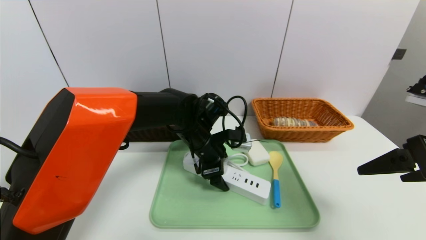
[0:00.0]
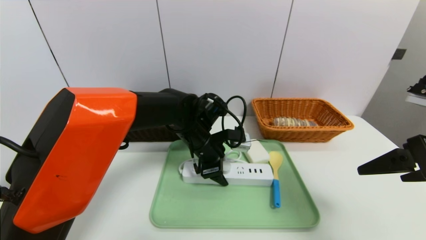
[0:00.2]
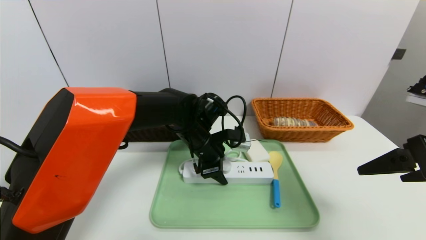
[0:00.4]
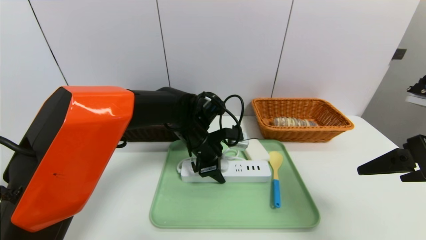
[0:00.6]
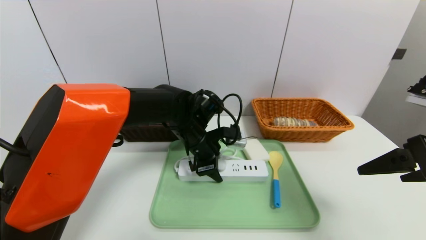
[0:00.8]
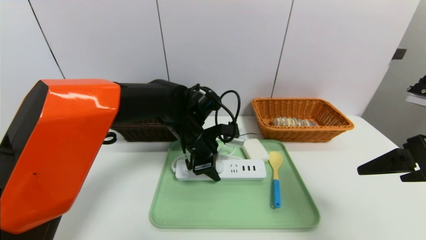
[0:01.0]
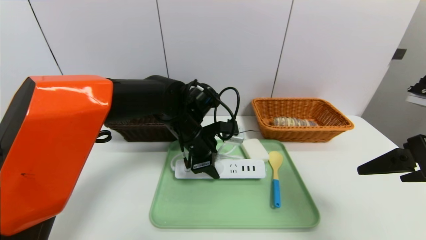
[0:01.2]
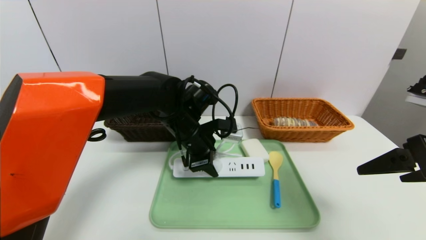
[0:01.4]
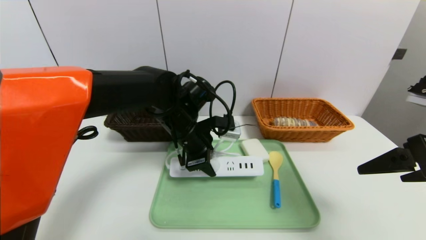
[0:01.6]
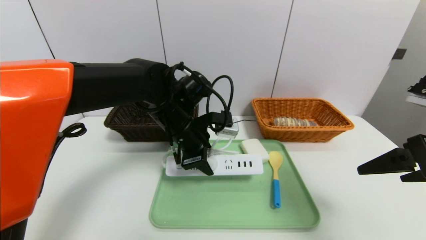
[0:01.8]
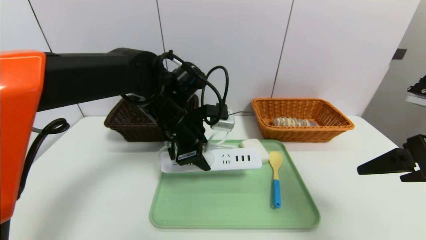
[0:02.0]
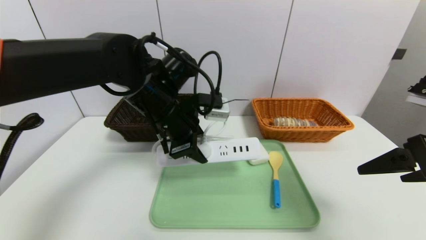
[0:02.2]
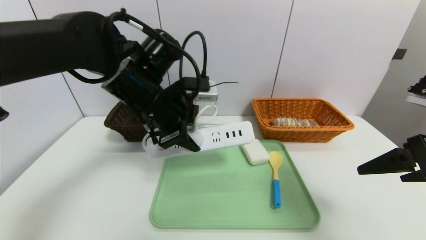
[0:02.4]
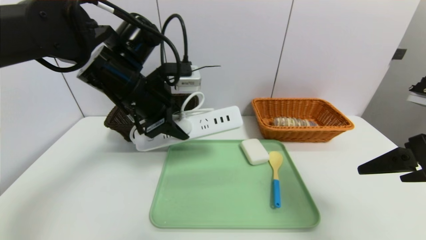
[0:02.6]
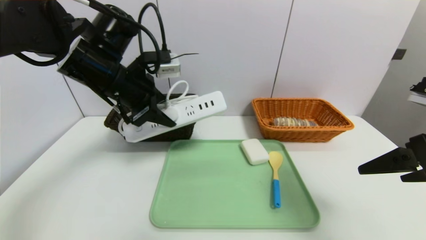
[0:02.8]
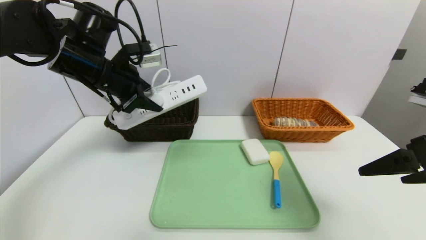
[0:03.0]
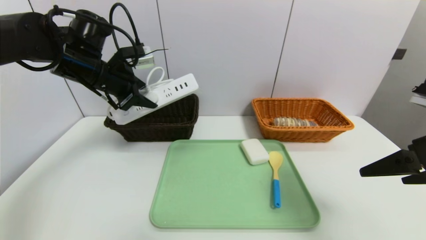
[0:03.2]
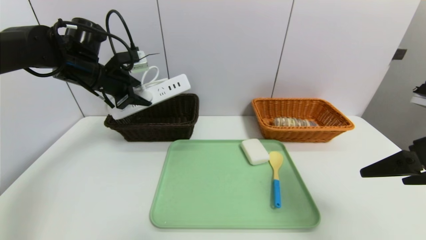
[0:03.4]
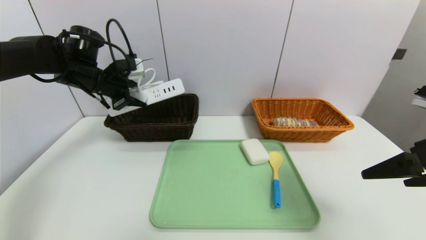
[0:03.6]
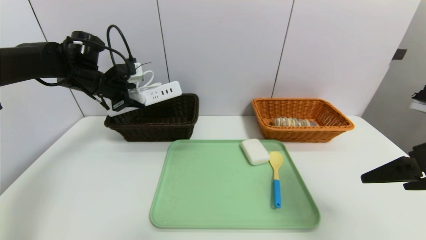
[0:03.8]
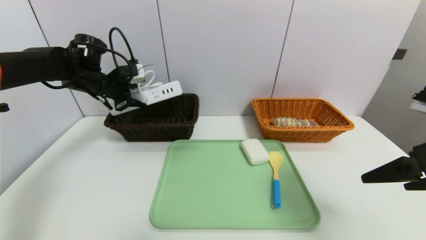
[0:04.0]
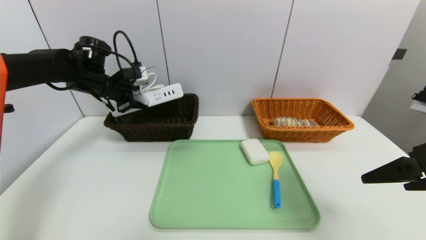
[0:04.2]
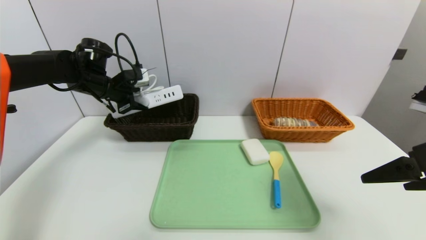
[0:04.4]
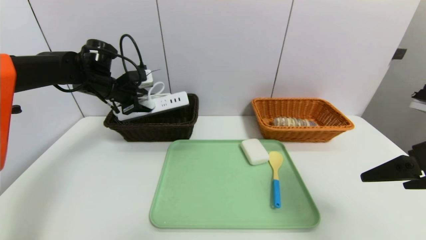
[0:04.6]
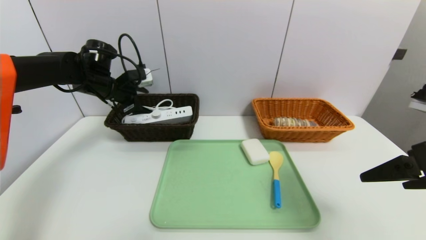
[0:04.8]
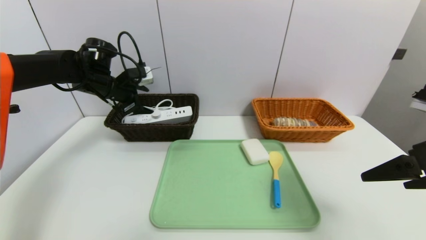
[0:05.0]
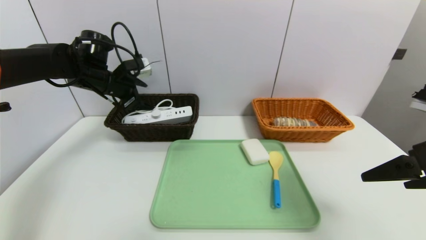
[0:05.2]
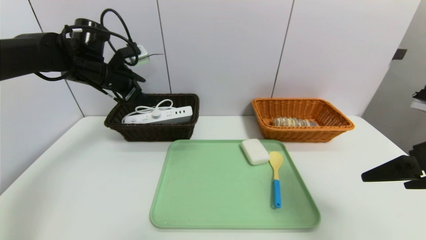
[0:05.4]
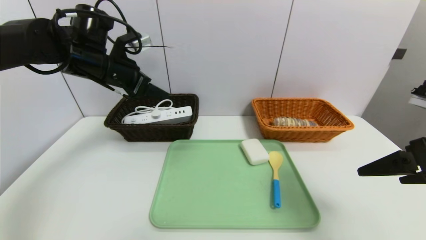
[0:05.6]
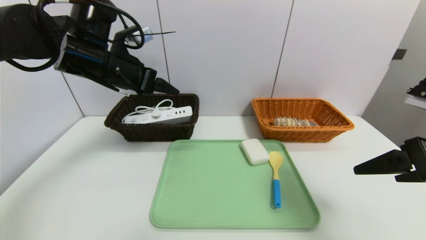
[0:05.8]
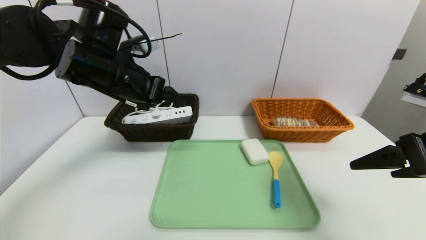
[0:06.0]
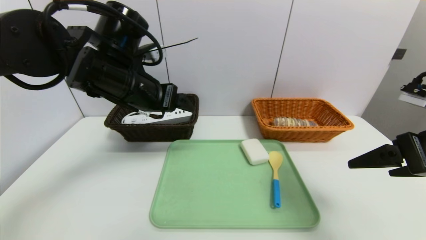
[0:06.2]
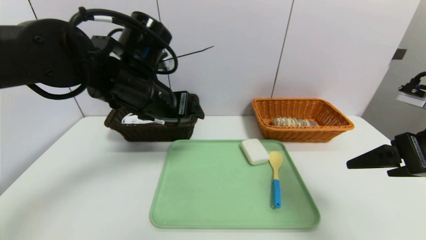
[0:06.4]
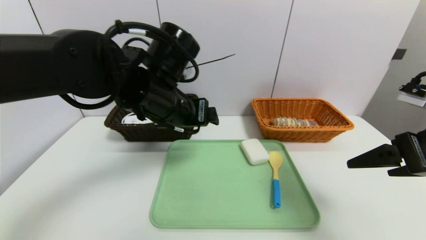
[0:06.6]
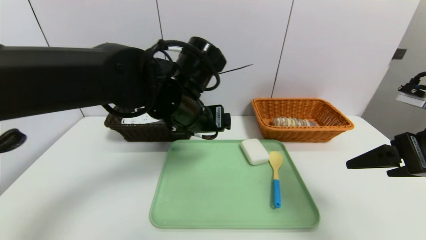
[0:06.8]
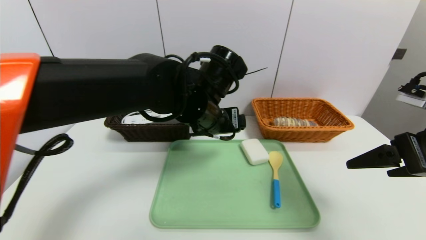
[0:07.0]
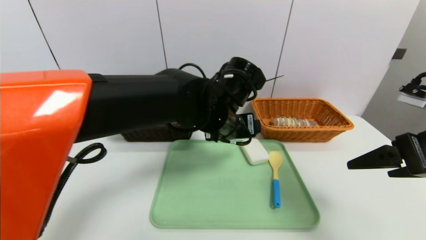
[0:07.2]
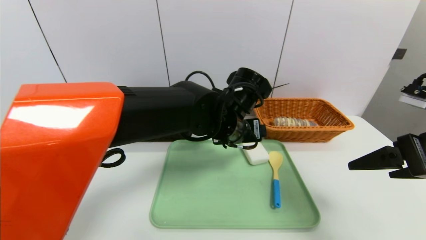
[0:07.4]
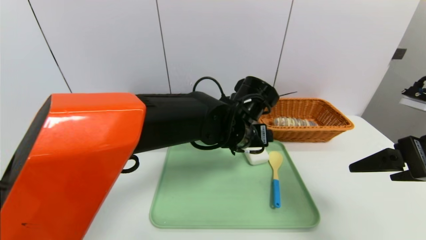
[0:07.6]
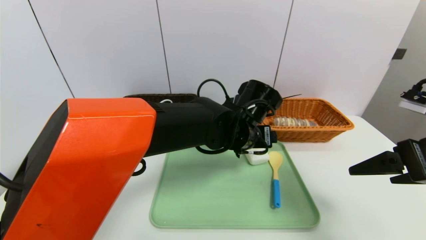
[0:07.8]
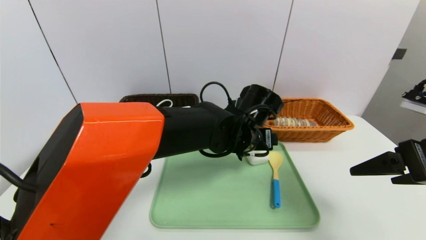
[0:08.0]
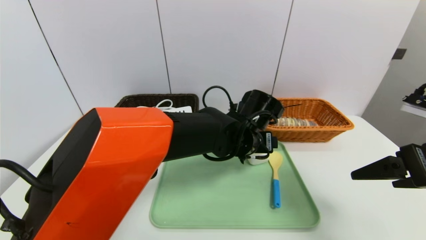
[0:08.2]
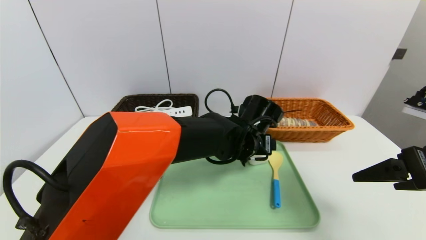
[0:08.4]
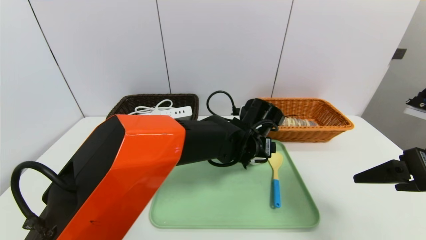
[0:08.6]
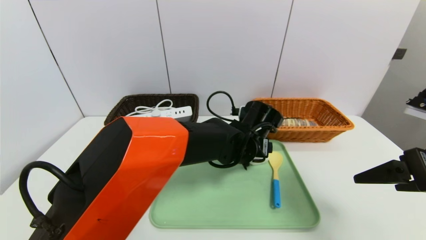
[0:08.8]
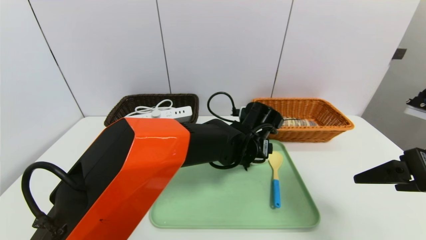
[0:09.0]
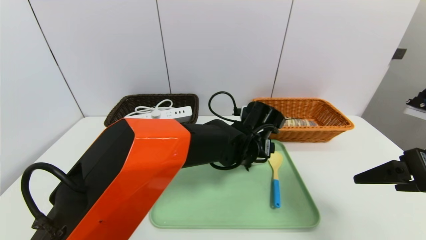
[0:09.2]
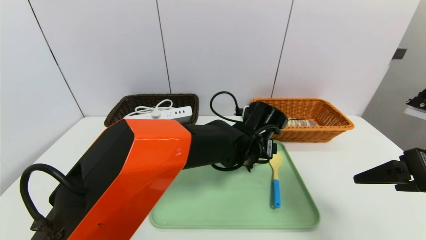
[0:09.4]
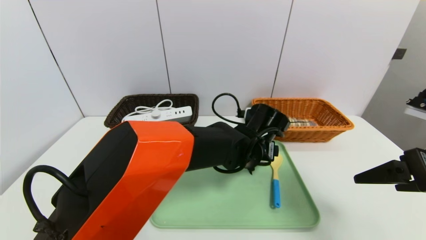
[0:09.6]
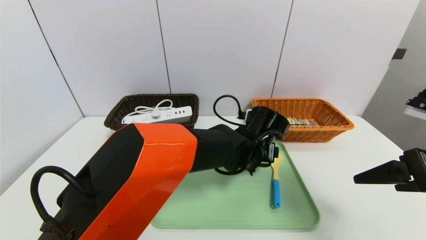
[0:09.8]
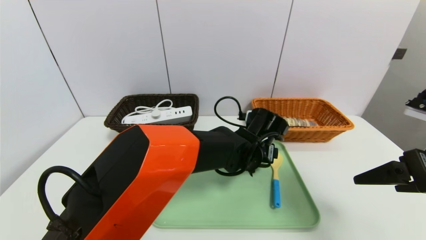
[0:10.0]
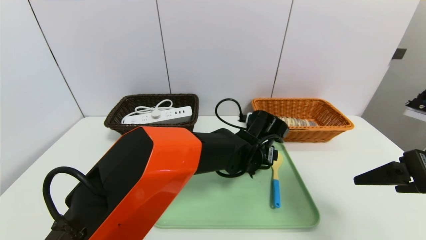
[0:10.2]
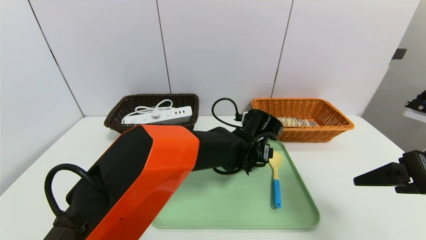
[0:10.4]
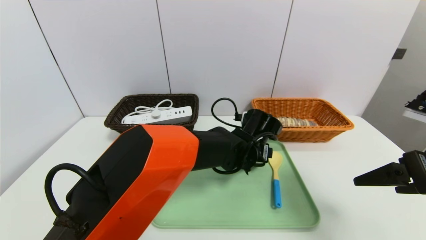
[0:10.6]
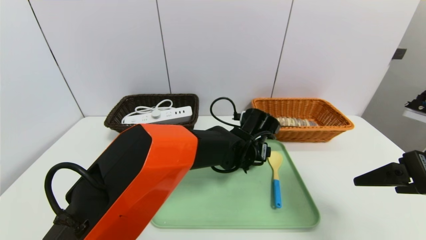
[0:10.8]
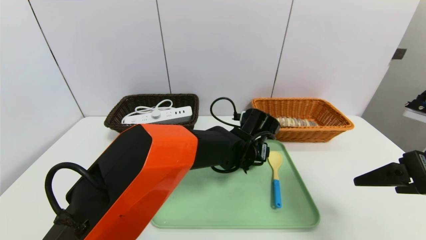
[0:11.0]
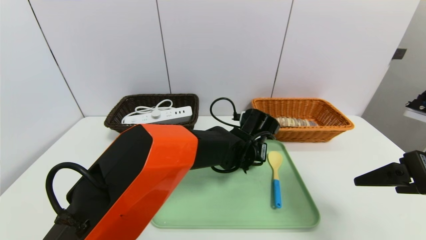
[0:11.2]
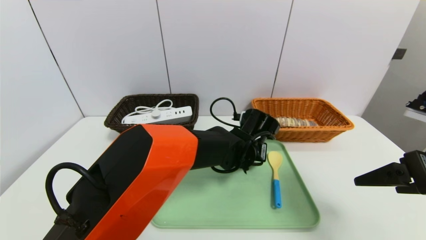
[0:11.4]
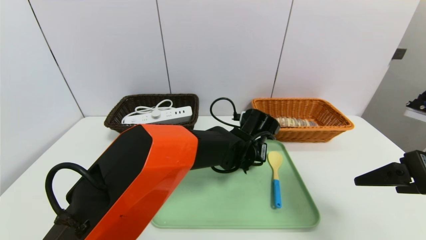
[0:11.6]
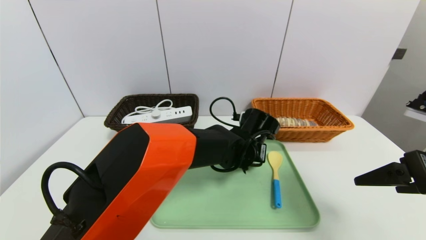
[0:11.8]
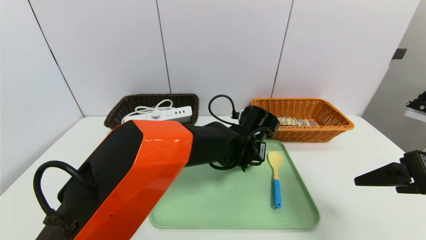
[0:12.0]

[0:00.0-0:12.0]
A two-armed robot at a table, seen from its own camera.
Task of the whole recording: place the food in the right basket with the right gripper, and place the non food items in the left basket with the left gripper.
Step, 0:00.0 to 0:05.0: Grasp the power strip and put it in the left basket.
0:00.0 to 0:01.6: The left gripper shifts approximately 5 cm upward, and closes up.
0:01.6 to 0:03.0: The left gripper travels to the left and upward by roughly 20 cm.
0:03.0 to 0:04.4: The left gripper is displaced forward, downward and to the left by about 10 cm.
0:04.4 to 0:06.0: The left gripper shifts some 15 cm backward, to the right and upward, and opens.
0:06.0 to 0:07.6: The left gripper goes about 25 cm to the right and downward.
0:07.6 to 0:09.0: The left gripper heads downward, covering roughly 5 cm.
0:09.0 to 0:10.4: There are only small adjustments of the grippers.
0:10.4 to 0:12.0: The left gripper closes its fingers.

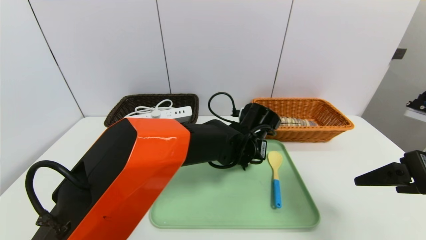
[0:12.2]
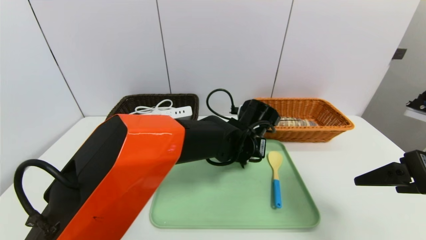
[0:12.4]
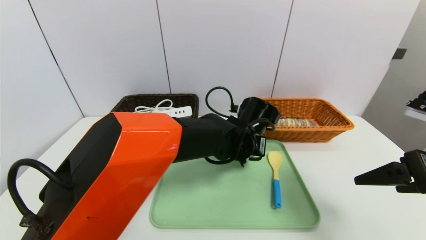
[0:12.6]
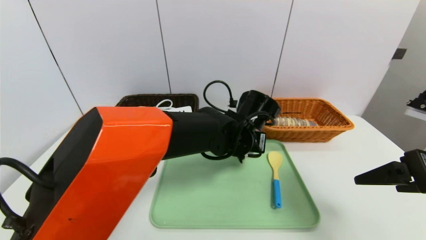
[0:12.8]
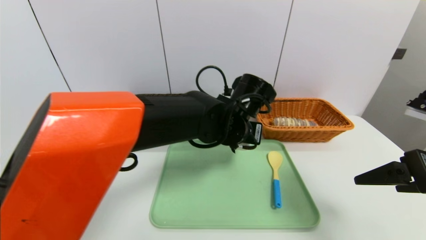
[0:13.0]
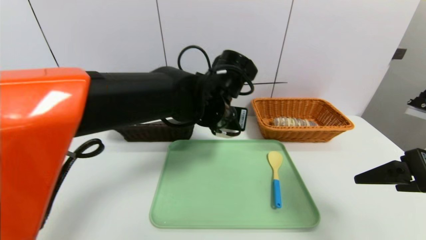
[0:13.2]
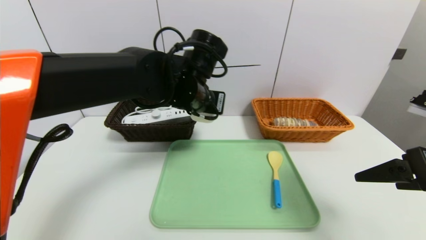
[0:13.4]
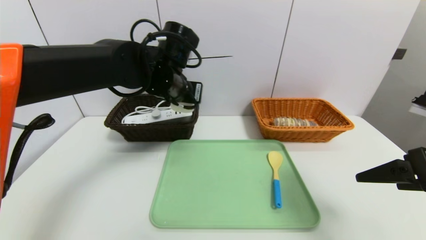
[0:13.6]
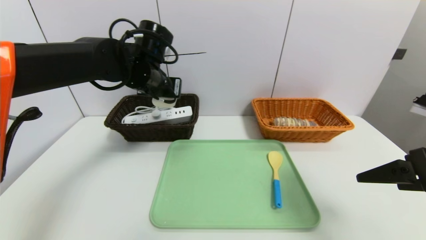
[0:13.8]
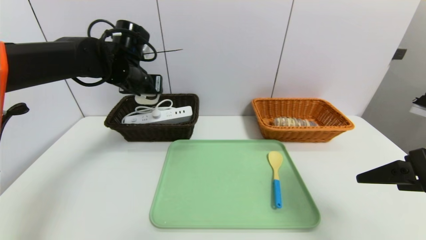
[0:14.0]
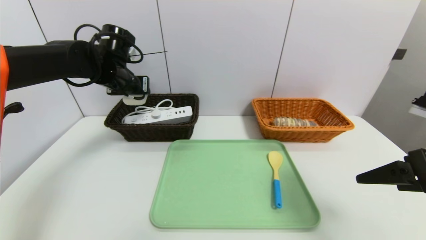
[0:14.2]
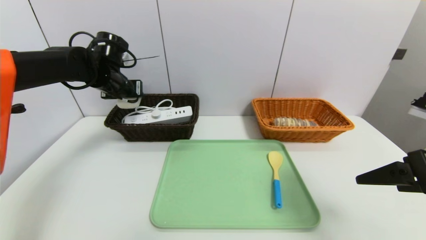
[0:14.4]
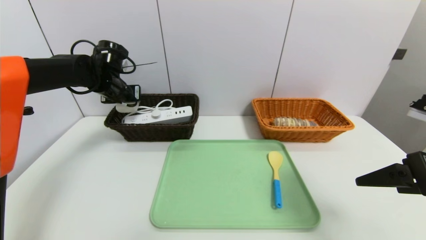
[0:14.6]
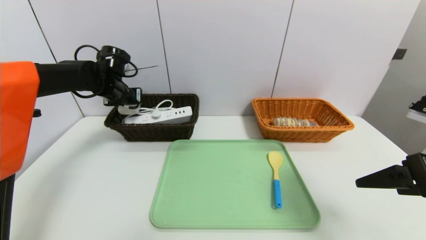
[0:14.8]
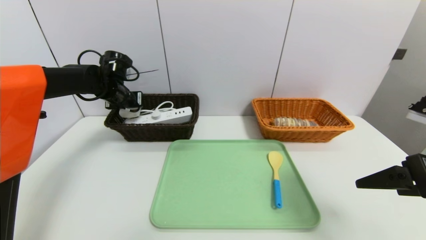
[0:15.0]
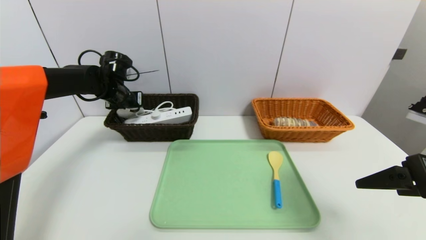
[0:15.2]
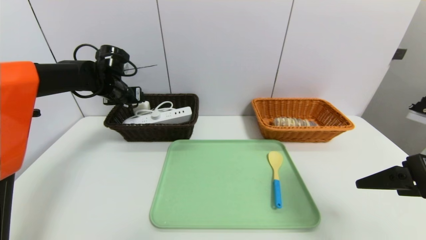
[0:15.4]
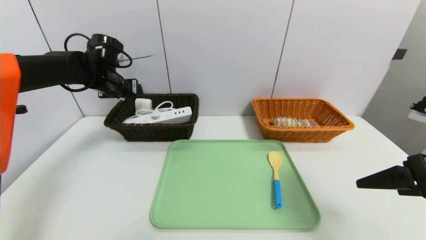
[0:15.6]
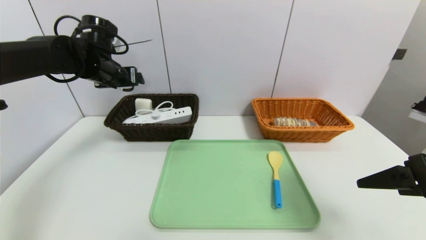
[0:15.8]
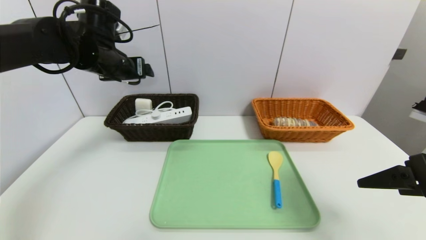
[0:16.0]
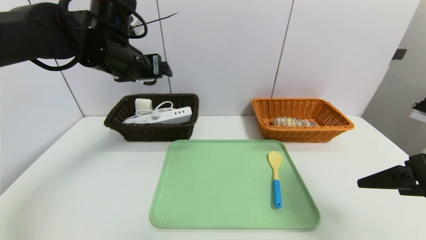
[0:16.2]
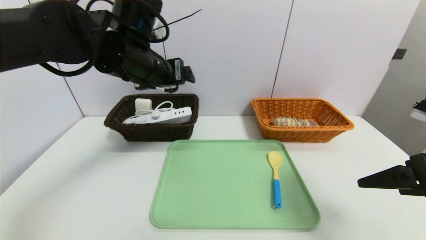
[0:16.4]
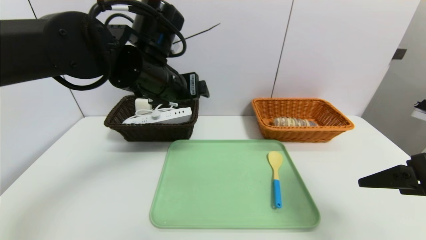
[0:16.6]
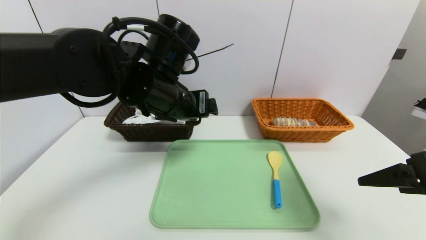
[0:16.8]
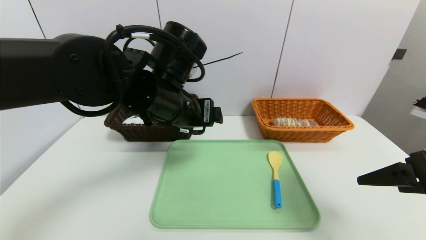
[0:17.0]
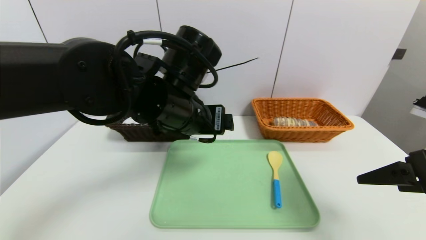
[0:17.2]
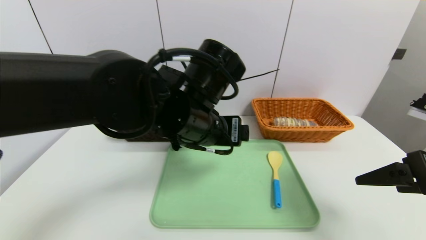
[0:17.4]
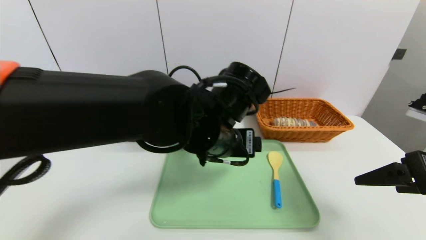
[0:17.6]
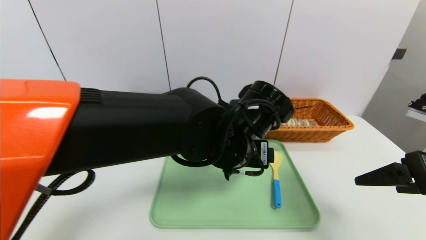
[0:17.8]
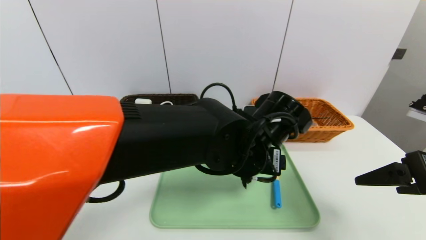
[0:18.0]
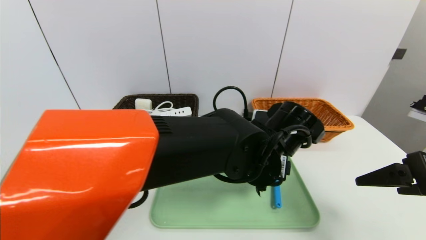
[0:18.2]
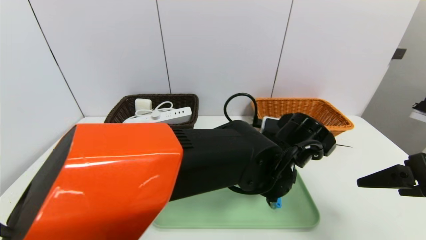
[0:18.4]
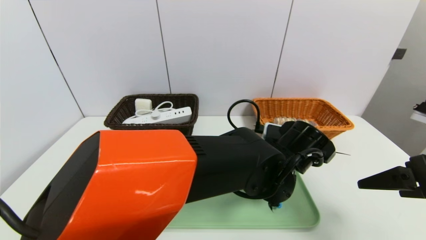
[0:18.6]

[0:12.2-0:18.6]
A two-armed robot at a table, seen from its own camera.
Task of the whole recording: place the food in the right basket with the right gripper, and place the non food items in the left basket with the left gripper.
Step, 0:12.2 to 0:15.4: Grasp the soap and put it in the left basket.
0:12.2 to 0:13.8: The left gripper is displaced to the left and upward by some 25 cm.
0:13.8 to 0:15.4: The left gripper is displaced to the left and forward by about 15 cm.
0:15.4 to 0:17.0: The left gripper shifts approximately 25 cm to the right and backward.
0:17.0 to 0:18.6: The left gripper heads to the right and downward, covering roughly 20 cm.
